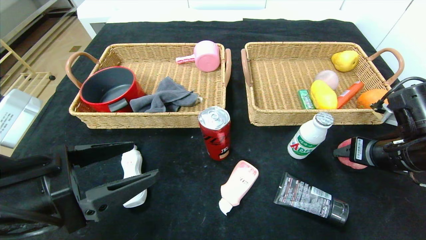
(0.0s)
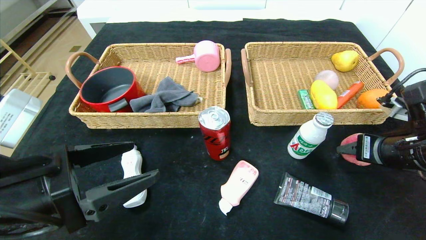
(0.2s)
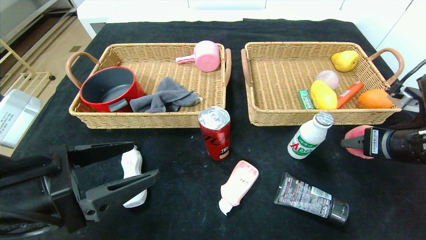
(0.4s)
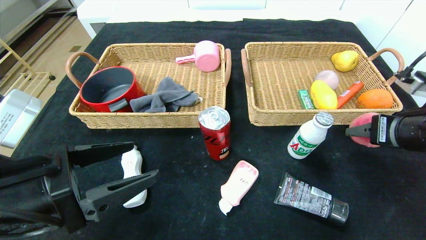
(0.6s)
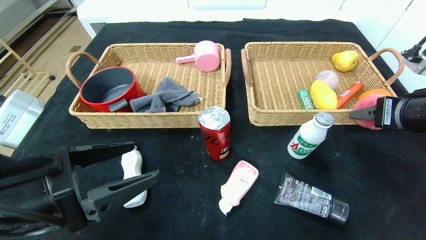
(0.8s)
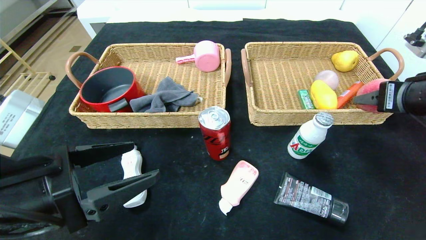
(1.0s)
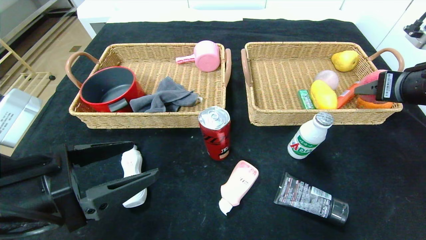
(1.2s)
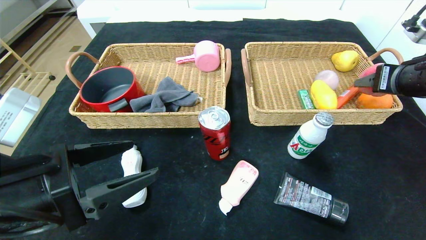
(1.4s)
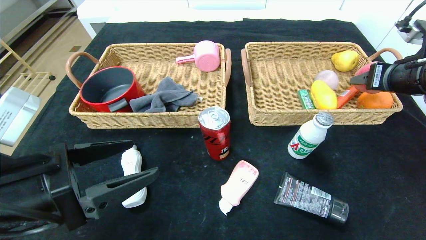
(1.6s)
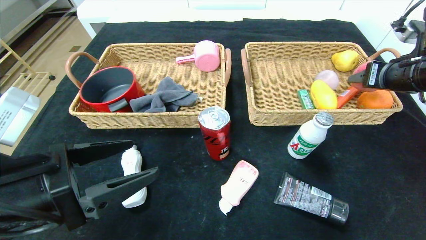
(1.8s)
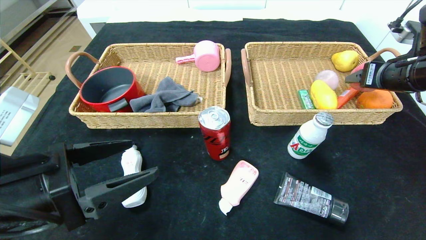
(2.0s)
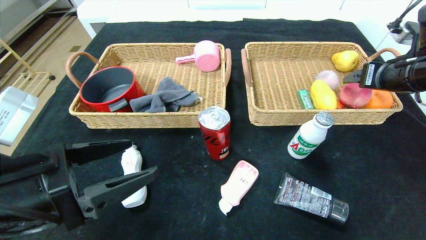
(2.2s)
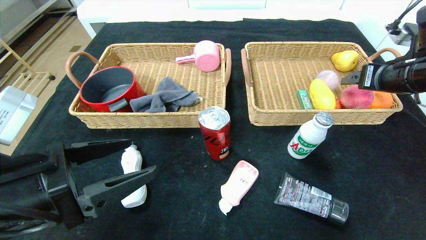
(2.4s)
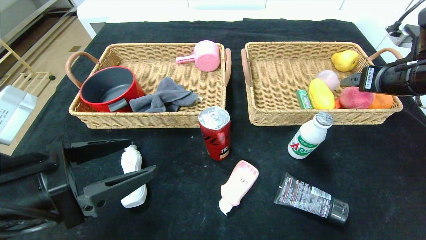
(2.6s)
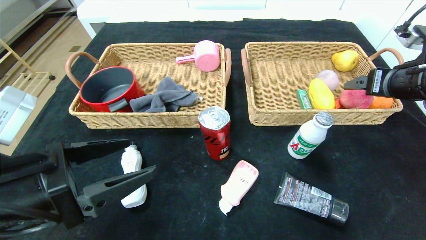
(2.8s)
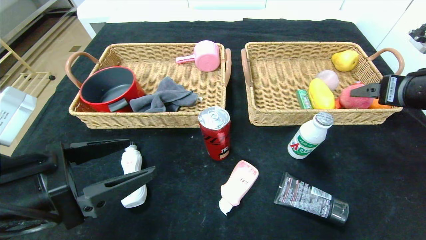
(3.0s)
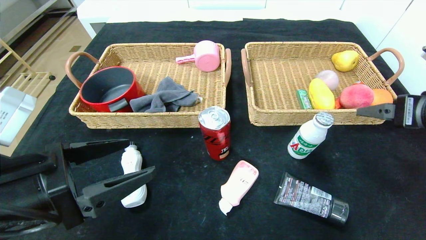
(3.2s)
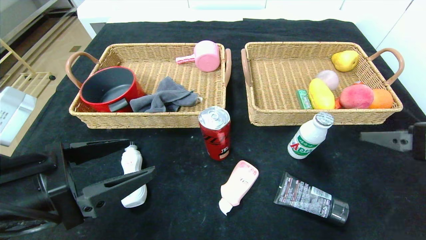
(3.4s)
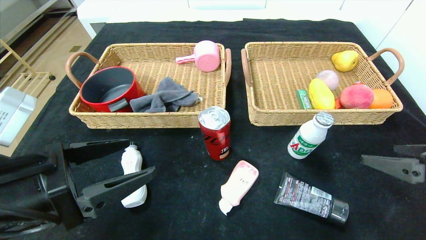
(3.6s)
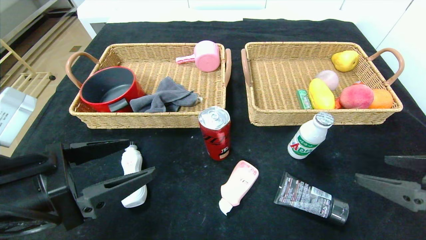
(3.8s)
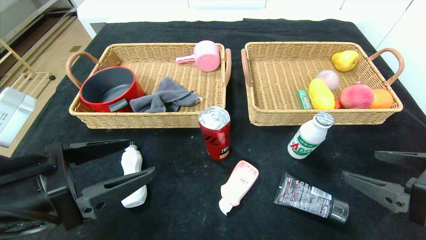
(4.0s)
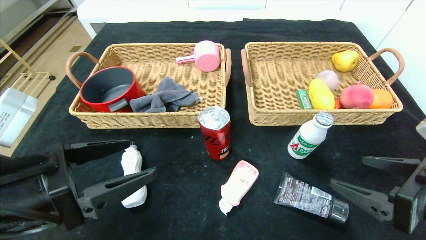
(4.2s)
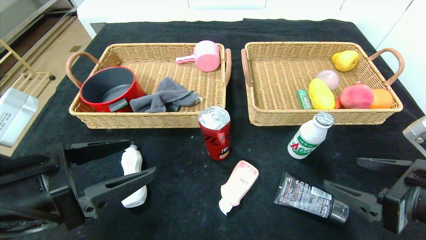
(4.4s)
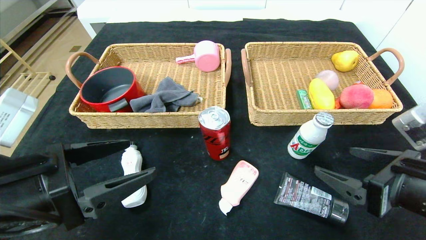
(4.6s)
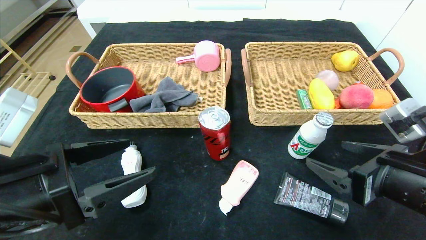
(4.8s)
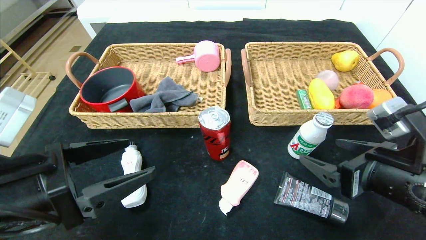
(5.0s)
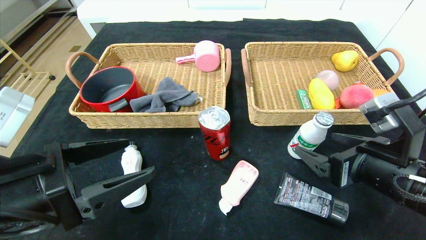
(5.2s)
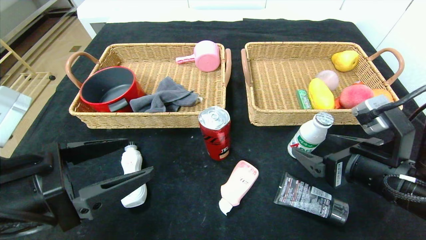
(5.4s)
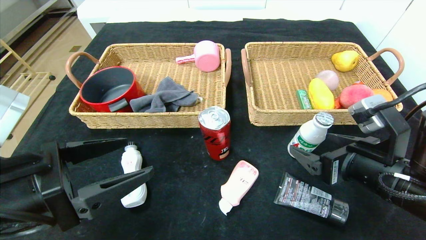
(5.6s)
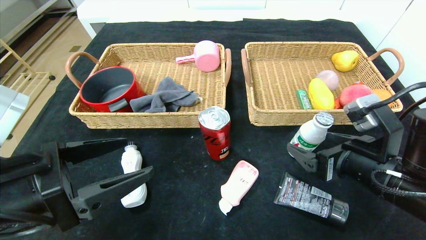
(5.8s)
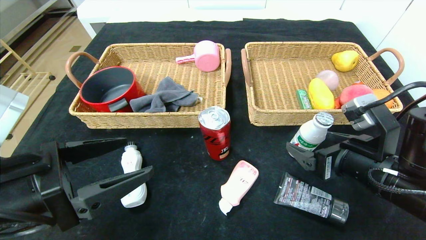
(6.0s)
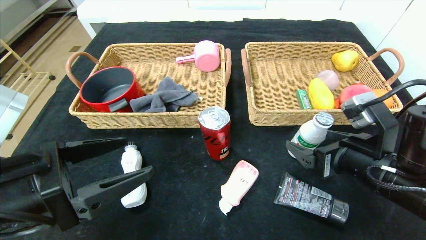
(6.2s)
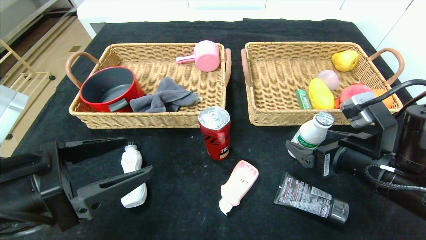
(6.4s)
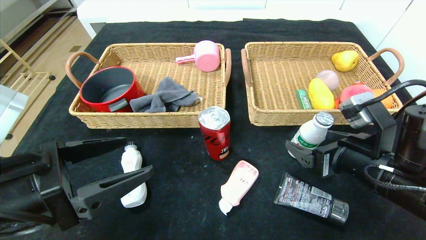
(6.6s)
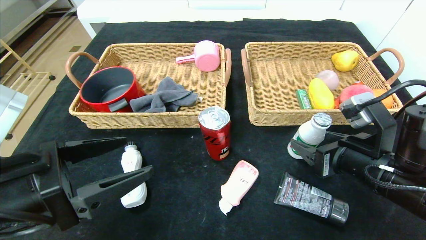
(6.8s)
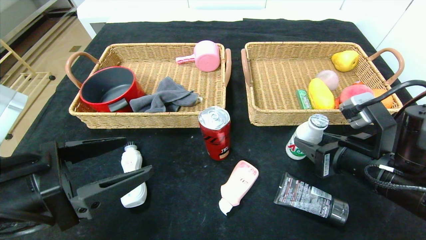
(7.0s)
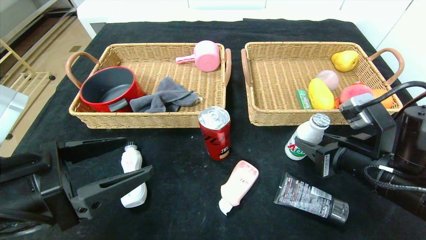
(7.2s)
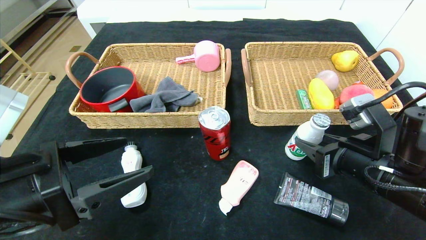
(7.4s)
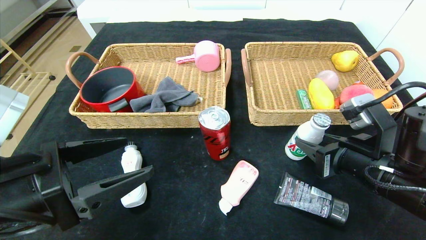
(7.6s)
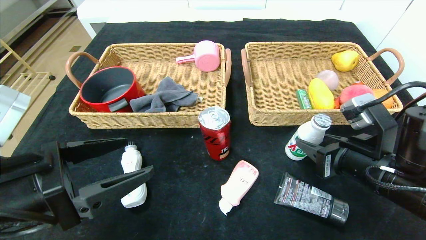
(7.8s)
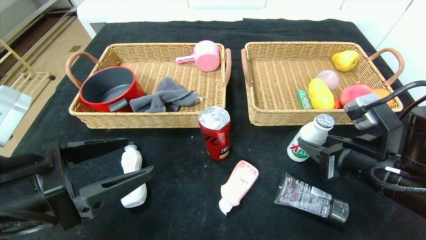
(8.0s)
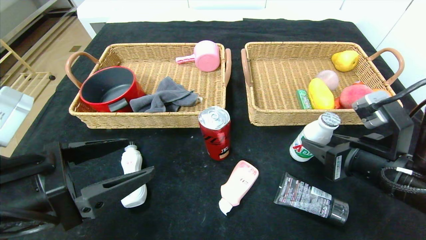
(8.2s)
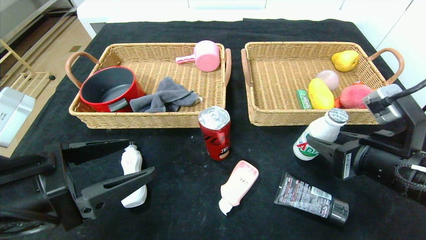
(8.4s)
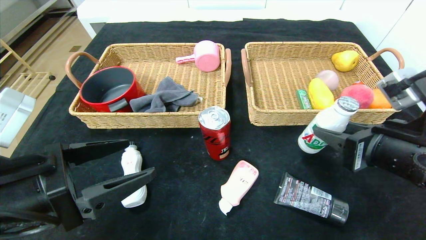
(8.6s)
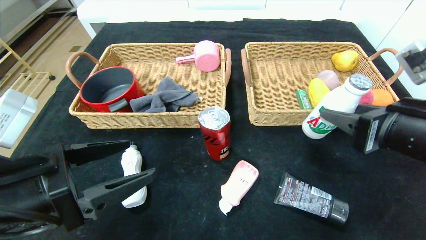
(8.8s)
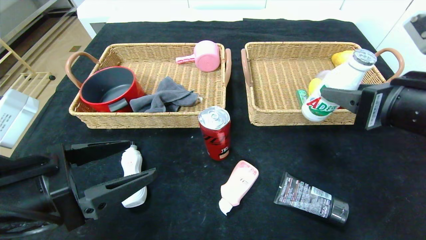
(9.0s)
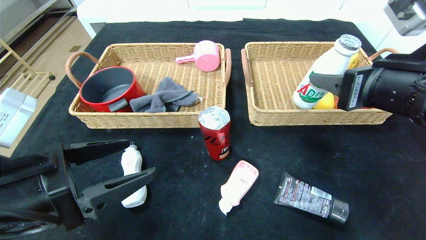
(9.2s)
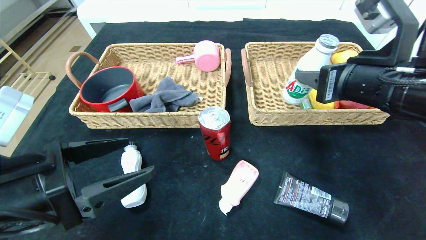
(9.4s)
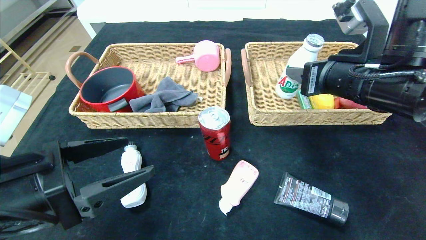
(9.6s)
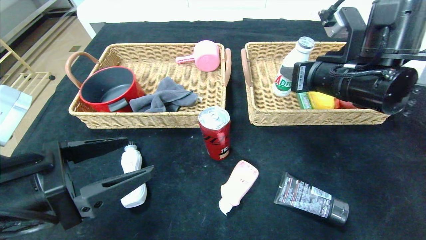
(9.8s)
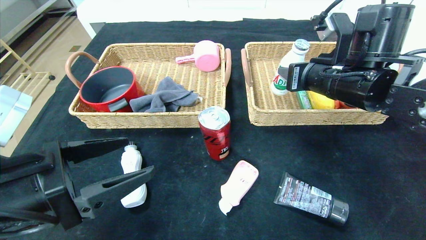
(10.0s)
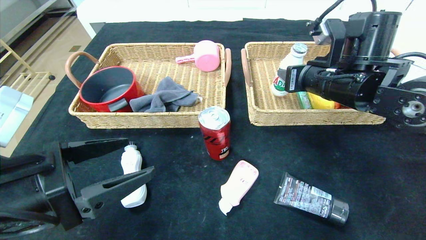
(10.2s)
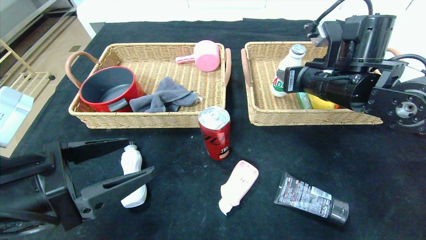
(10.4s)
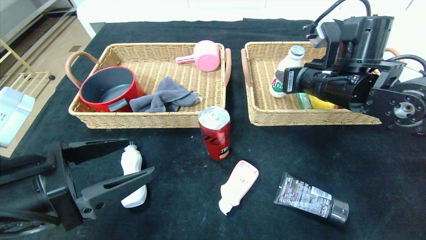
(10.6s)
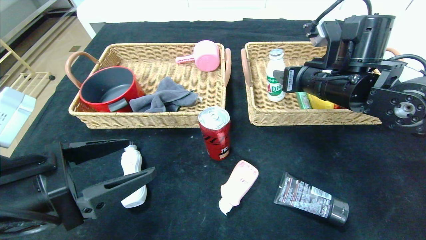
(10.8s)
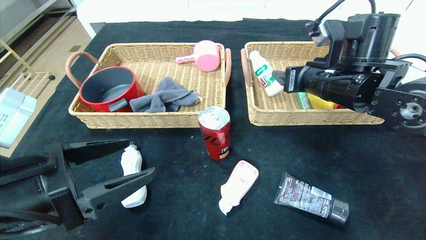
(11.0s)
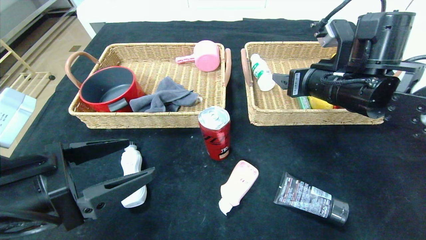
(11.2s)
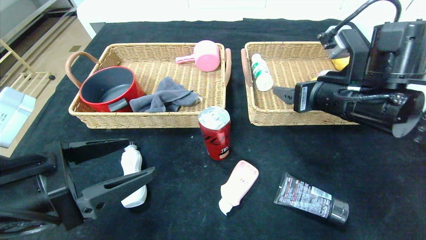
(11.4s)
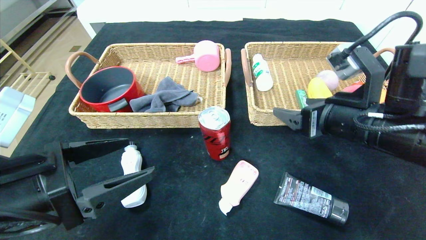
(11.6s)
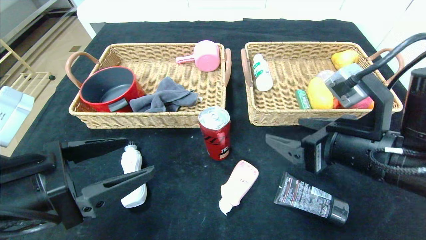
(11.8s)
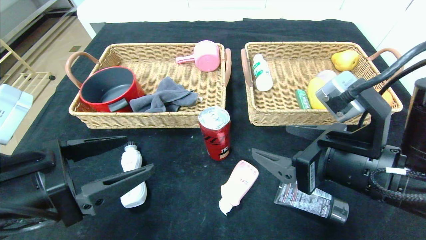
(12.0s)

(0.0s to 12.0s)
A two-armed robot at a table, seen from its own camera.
Step, 0.0s - 2.2s: Grasp the peach and put it in the right basket.
Step, 2.4s - 11.0s: Grasp the ad milk and put it in the right basket.
0.0s - 1.6s: The right gripper moves upward and forward, approximately 10 cm.
1.6s - 3.0s: The right gripper goes some 5 cm backward, and opens its fingers.
3.0s - 4.4s: The right gripper goes about 15 cm backward, downward and to the left.
4.4s - 6.0s: The right gripper shifts approximately 5 cm forward.
6.0s - 7.6s: The right gripper closes its fingers.
7.6s - 9.0s: The right gripper is displaced upward by approximately 10 cm.
9.0s - 10.4s: The right gripper shifts roughly 15 cm forward.
10.4s - 12.0s: The right gripper goes some 15 cm backward, and opens up.

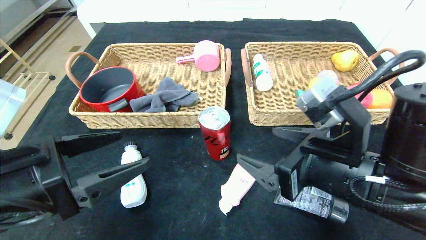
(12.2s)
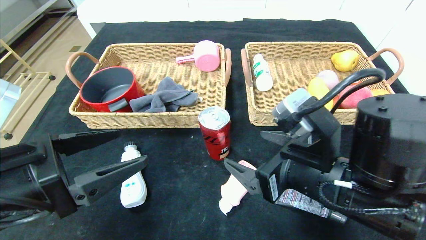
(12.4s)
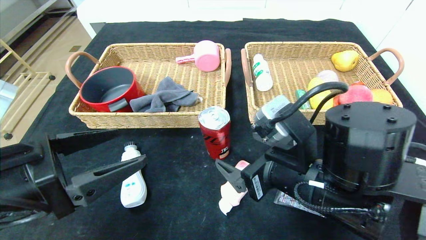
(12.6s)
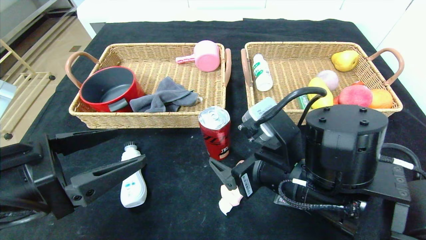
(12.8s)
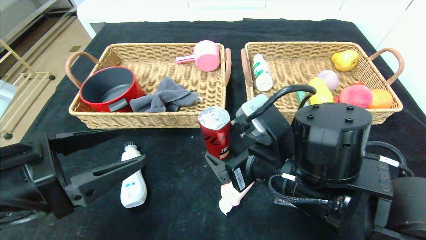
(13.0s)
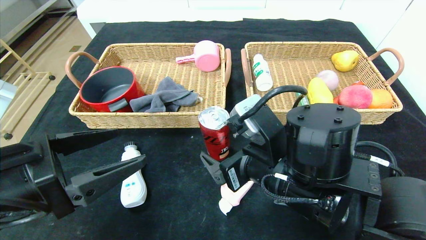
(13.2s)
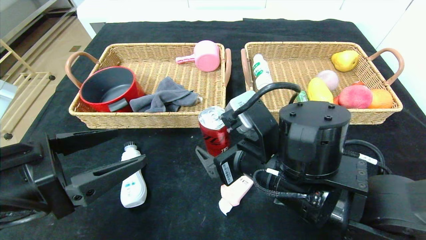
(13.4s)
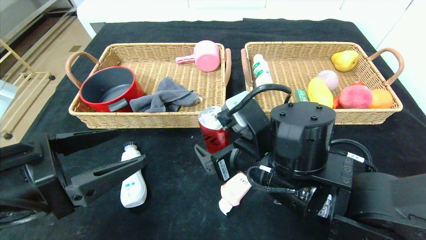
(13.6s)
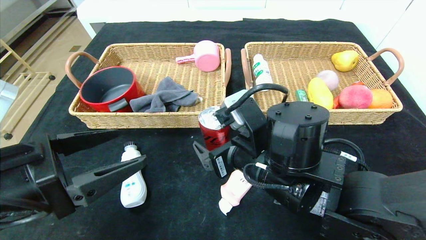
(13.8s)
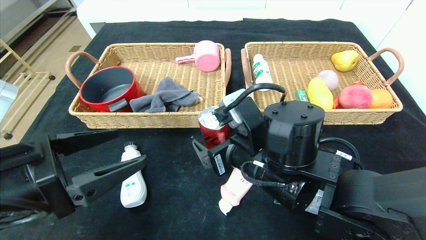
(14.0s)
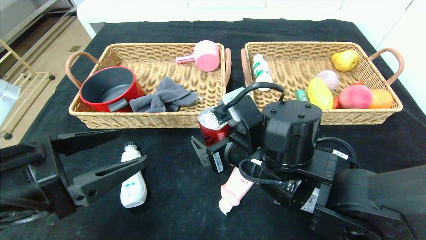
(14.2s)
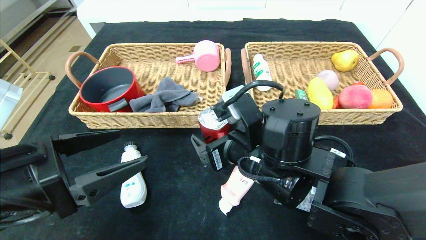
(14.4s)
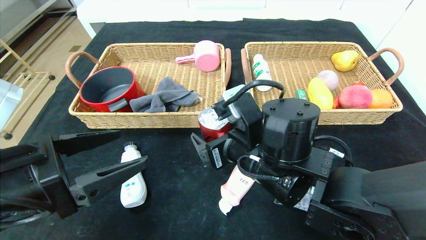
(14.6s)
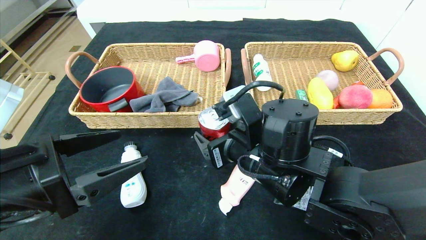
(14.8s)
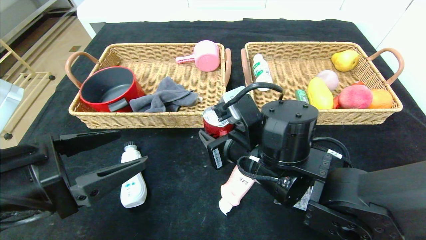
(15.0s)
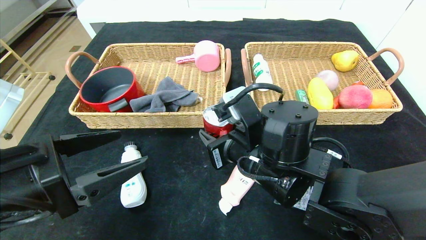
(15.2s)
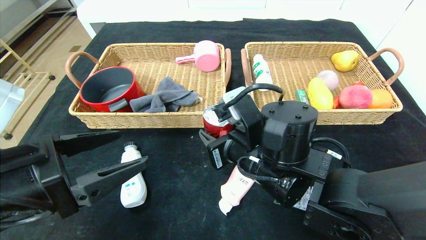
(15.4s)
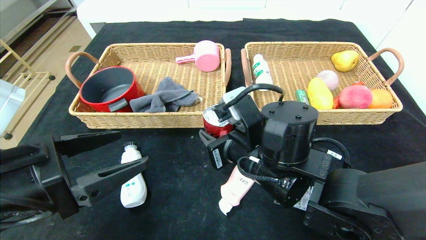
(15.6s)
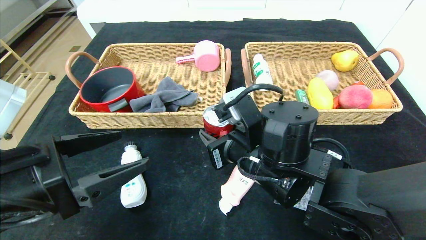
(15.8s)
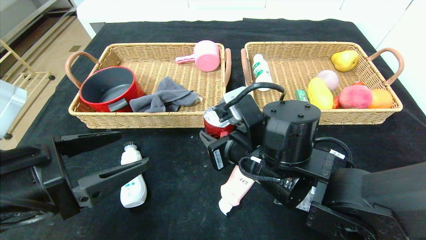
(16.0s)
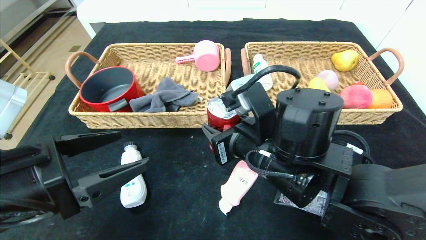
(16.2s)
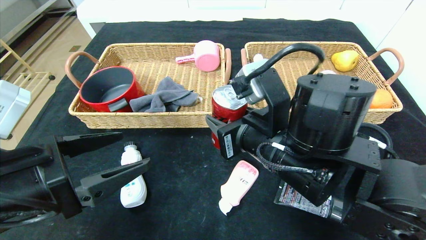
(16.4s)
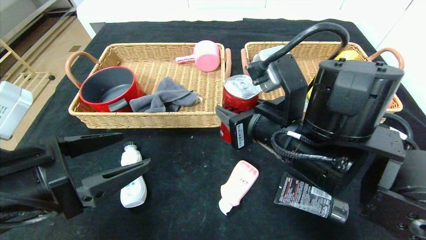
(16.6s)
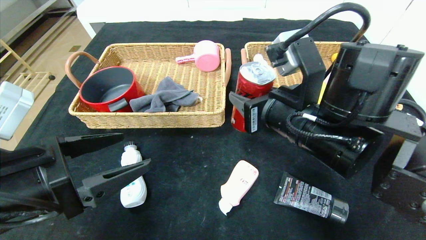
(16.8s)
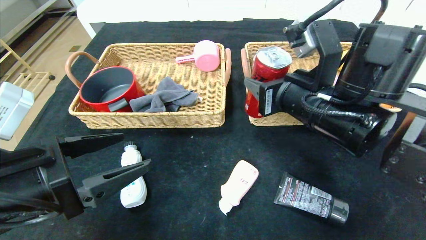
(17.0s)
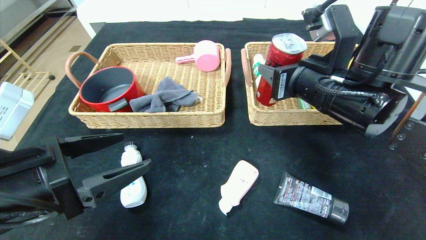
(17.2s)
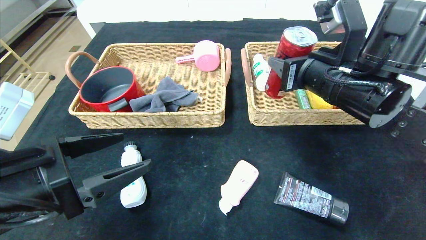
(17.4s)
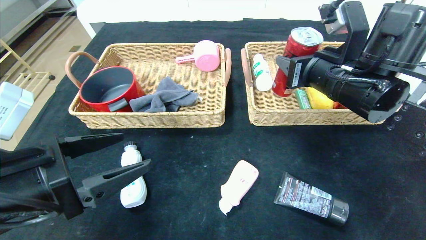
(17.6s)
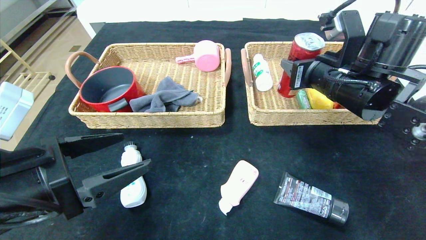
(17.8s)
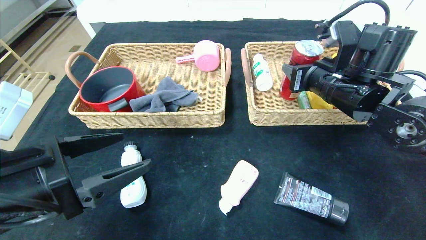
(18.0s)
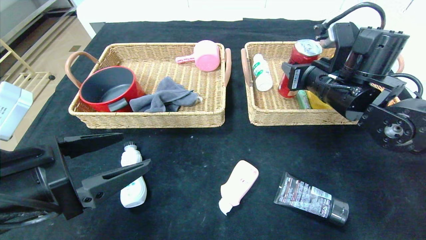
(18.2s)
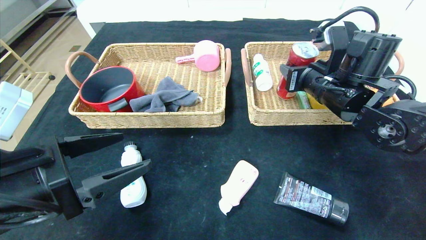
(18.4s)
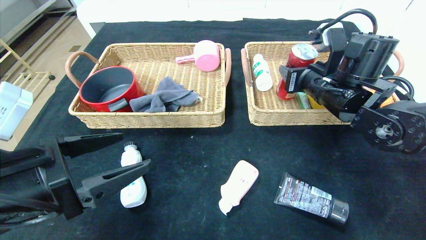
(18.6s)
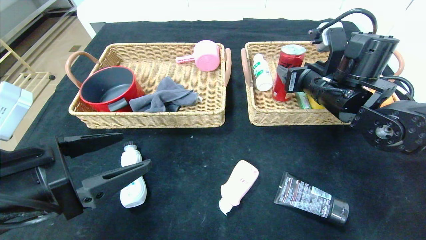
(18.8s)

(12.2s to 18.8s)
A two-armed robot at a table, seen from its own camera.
12.2s - 13.8s: The right gripper is displaced to the left and forward by roughly 10 cm.
13.8s - 15.4s: The right gripper closes its fingers.
15.4s - 17.2s: The right gripper heads upward and to the right, covering approximately 15 cm.
17.2s - 18.8s: The right gripper travels forward by roughly 10 cm.
